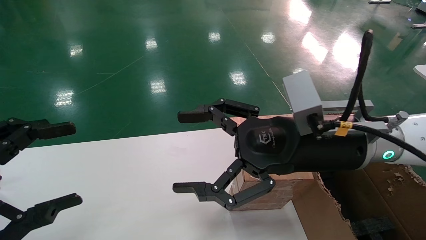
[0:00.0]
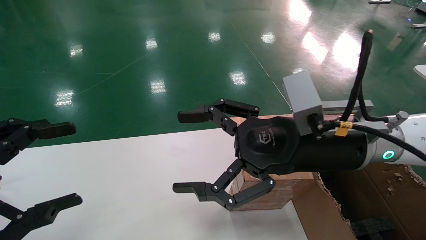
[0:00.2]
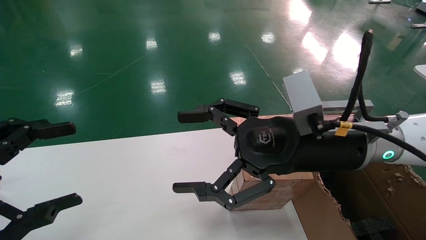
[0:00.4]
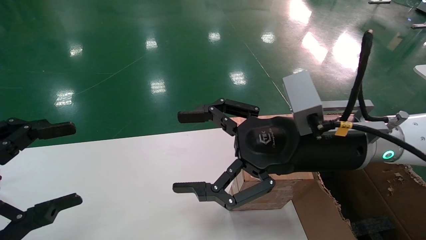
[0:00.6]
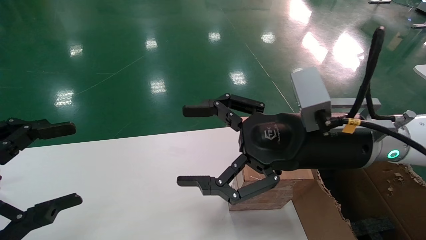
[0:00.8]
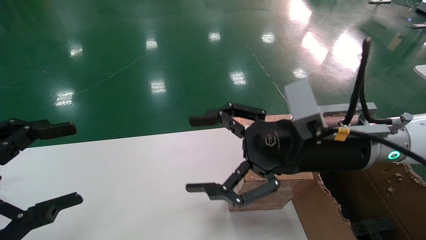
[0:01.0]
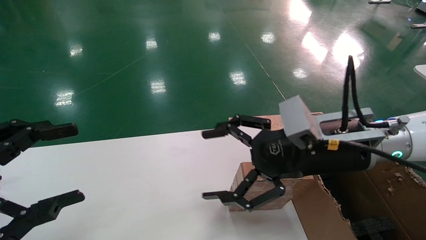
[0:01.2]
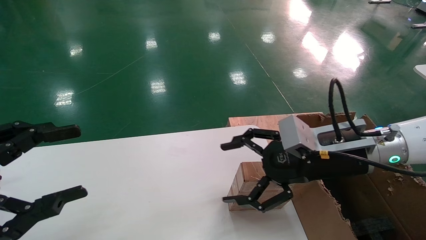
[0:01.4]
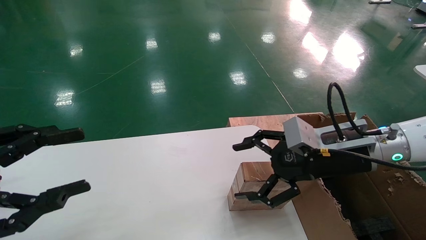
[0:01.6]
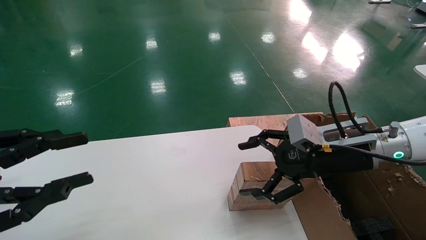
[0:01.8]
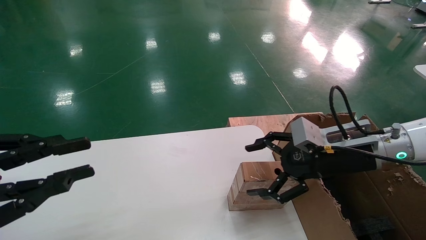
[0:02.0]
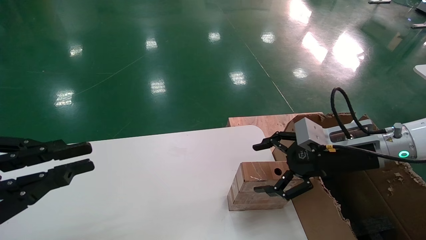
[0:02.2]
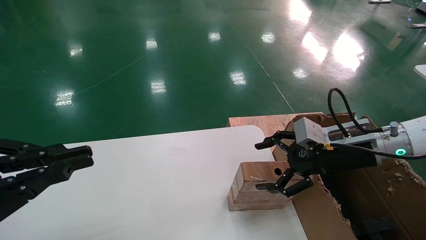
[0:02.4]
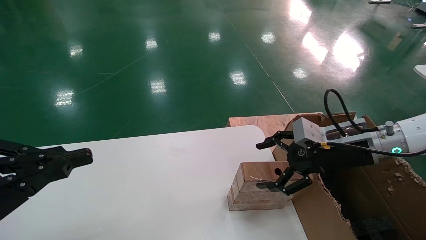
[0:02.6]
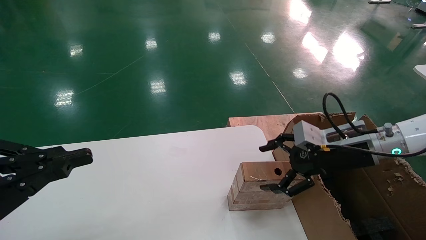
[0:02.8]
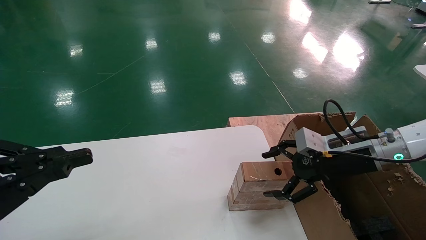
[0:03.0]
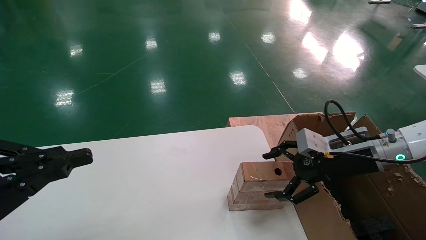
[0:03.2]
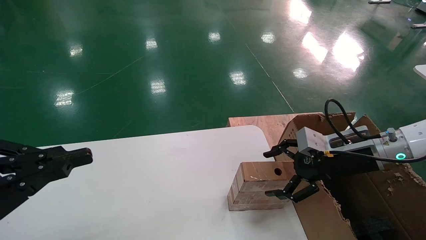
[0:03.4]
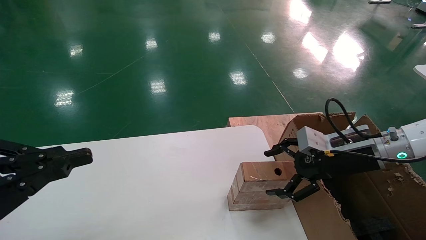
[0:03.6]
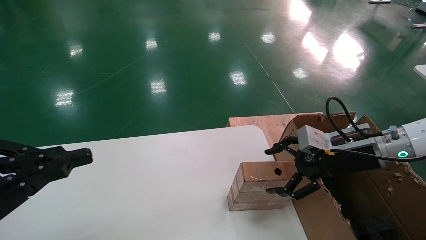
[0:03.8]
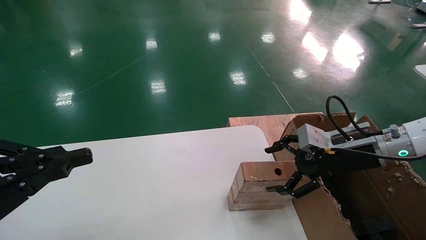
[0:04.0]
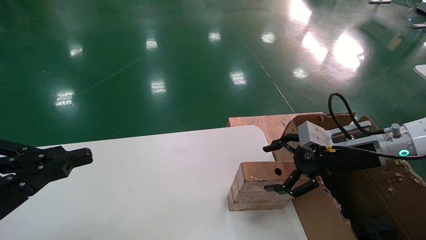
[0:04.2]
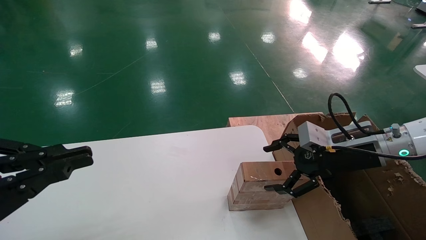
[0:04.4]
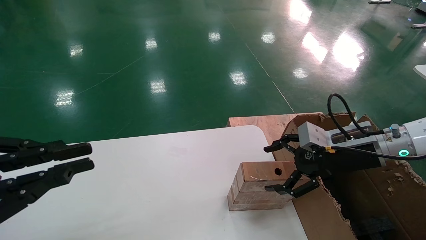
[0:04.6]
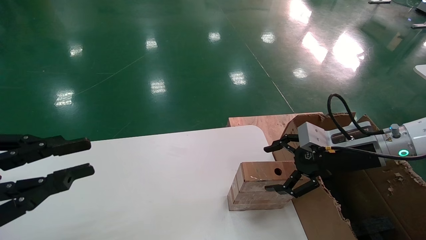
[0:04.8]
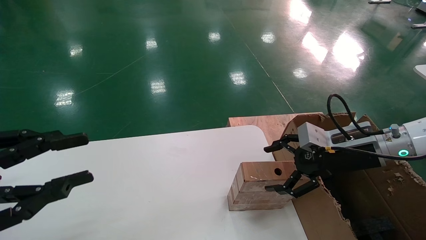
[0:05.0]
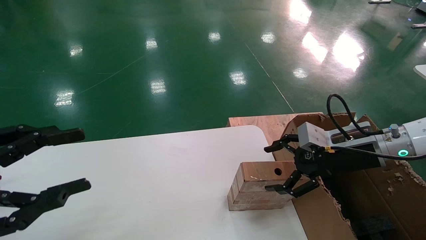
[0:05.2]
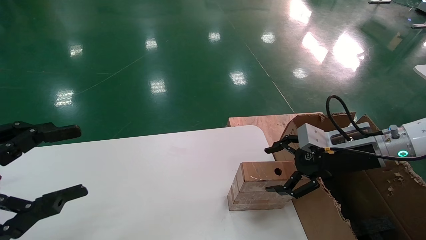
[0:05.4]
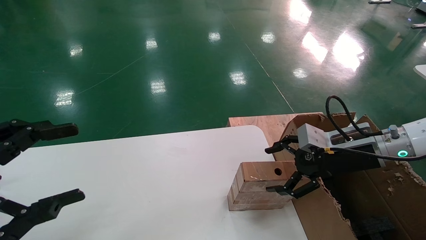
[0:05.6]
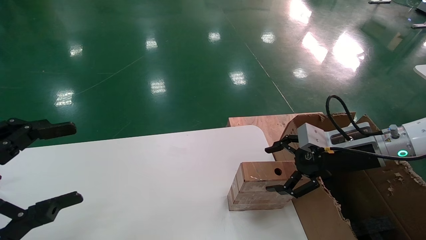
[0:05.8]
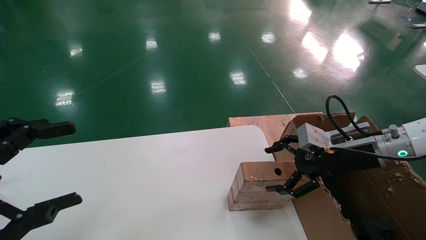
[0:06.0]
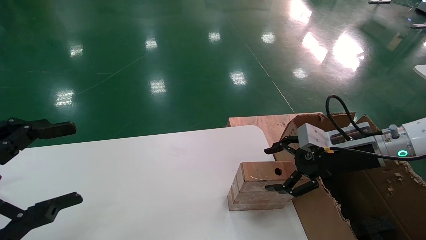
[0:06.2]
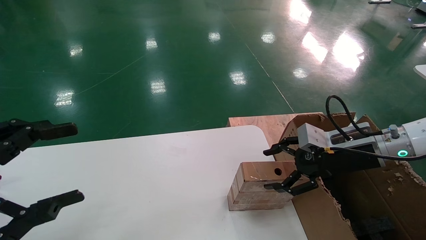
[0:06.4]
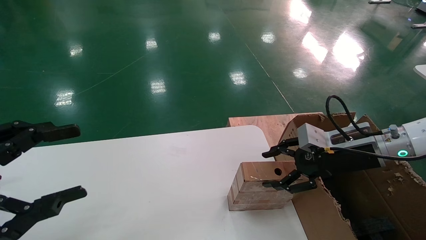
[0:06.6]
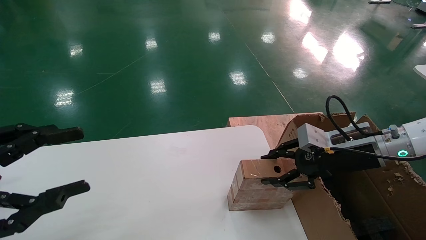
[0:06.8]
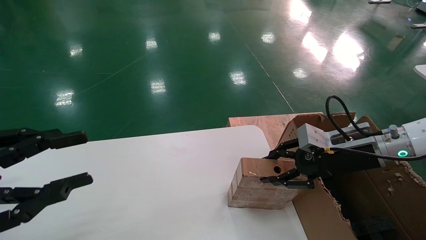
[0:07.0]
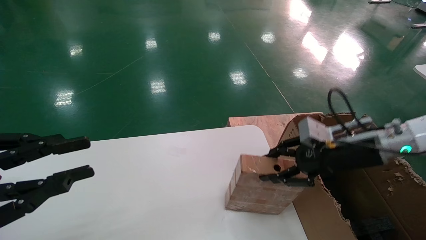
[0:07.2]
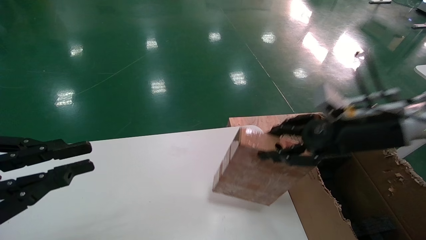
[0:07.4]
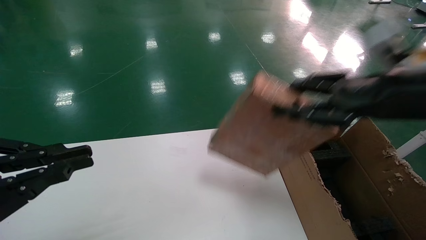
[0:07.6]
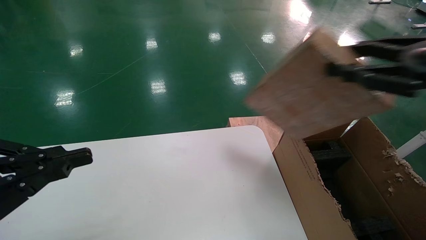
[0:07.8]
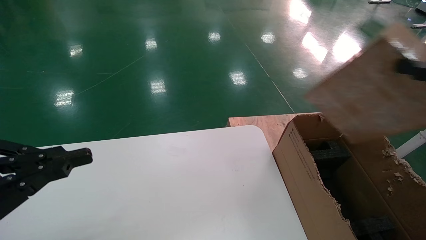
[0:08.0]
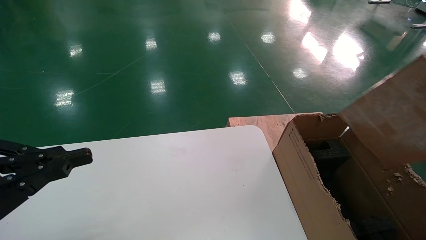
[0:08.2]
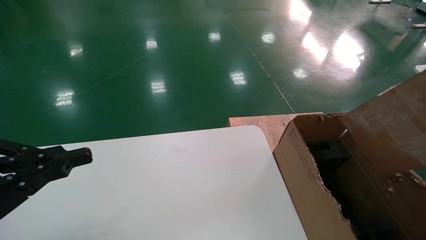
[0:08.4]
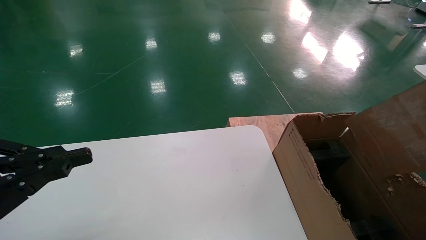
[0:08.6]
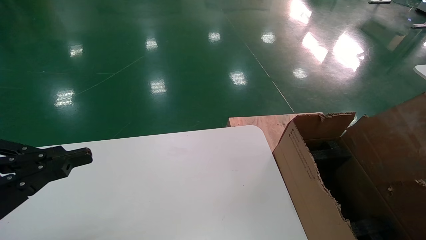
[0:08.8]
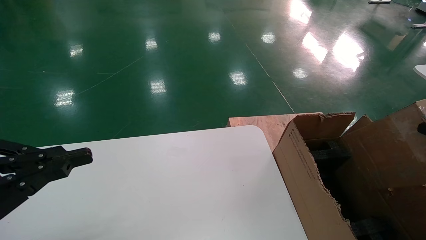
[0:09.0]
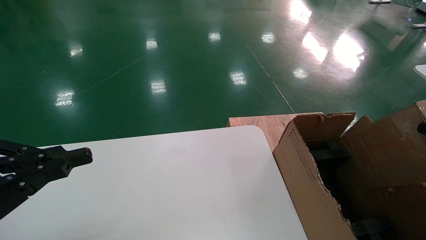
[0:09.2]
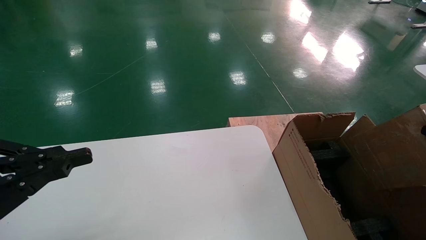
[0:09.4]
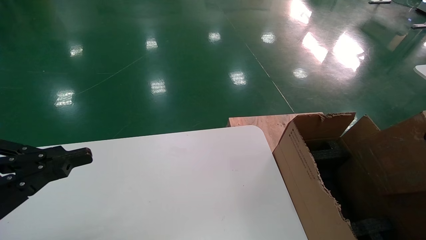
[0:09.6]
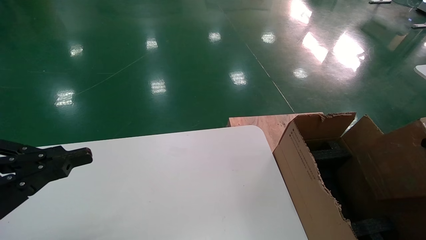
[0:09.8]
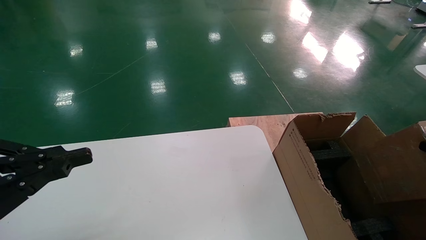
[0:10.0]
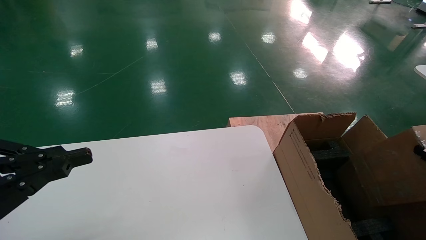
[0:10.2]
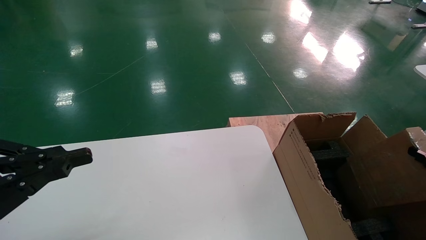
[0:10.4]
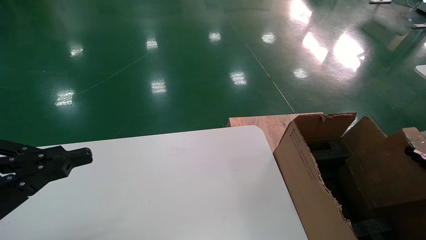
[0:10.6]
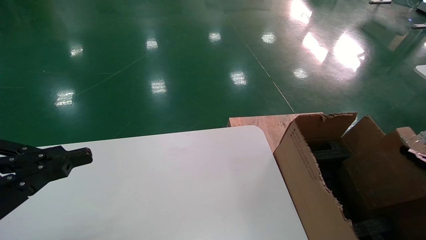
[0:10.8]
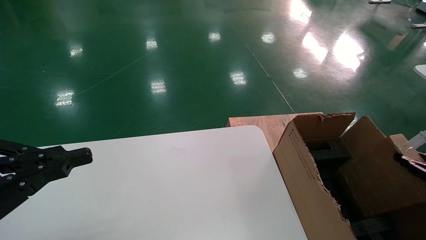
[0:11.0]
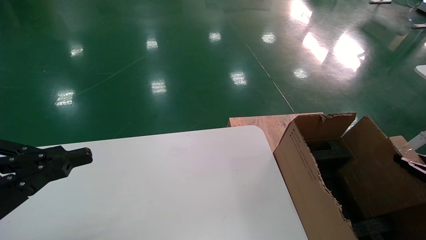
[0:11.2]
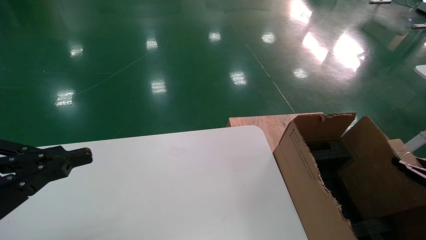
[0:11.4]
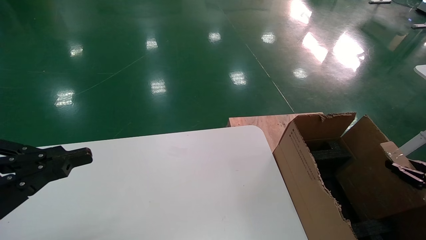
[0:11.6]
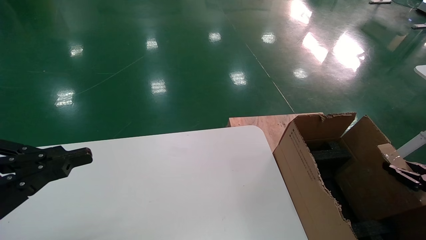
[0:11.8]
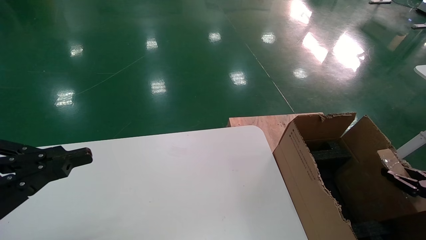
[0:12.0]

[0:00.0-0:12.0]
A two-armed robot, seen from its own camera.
Task of the whole recording: put the box on the table into the big box.
Step, 0:01.2 to 0:06.8: Pick up the mouse and the power cord paper box.
0:00.0 to 0:01.6: The right gripper heads to the right, covering about 10 cm.
0:01.6 to 0:03.0: The left gripper closes; the right gripper heads to the right, covering approximately 5 cm.
0:03.0 to 0:04.4: The two grippers keep their place.
0:04.4 to 0:06.0: The left gripper opens.
0:06.0 to 0:07.6: The right gripper shifts some 15 cm upward and backward, and closes. The left gripper closes.
0:07.6 to 0:09.0: The right gripper goes approximately 25 cm to the right, downward and backward.
0:09.0 to 0:10.4: The right gripper moves downward, some 10 cm.
0:10.4 to 0:12.0: The right gripper shifts roughly 5 cm downward.

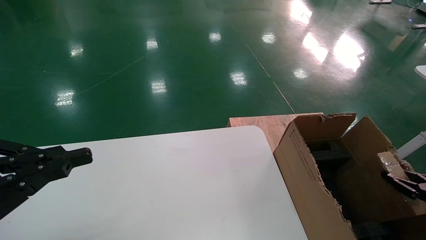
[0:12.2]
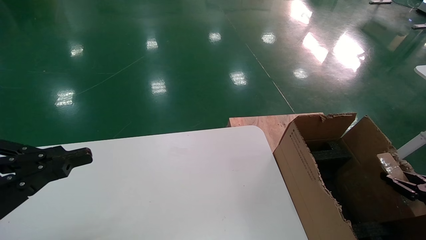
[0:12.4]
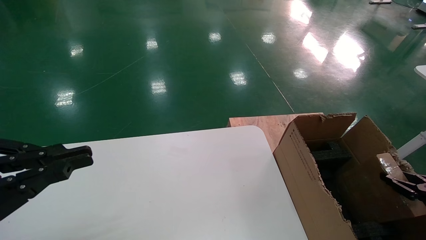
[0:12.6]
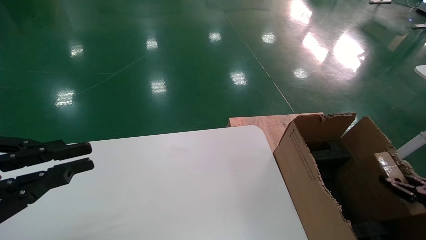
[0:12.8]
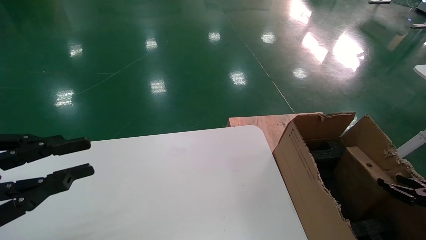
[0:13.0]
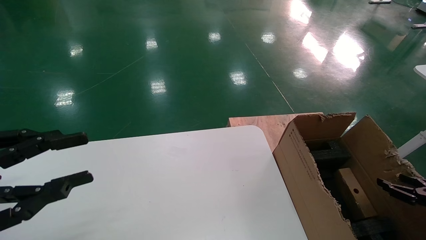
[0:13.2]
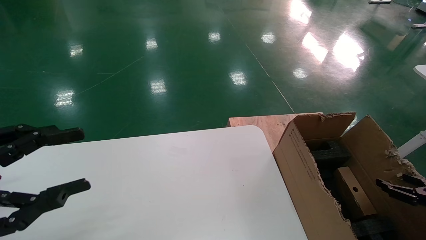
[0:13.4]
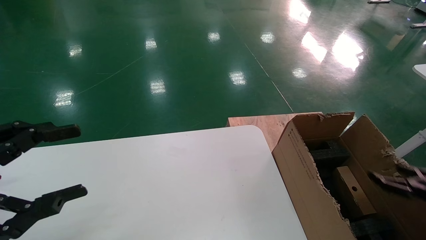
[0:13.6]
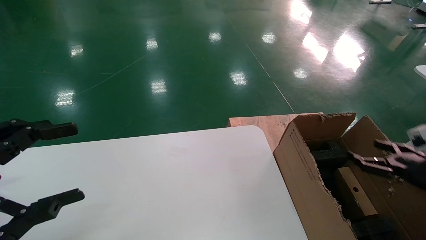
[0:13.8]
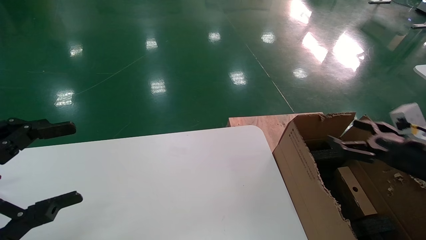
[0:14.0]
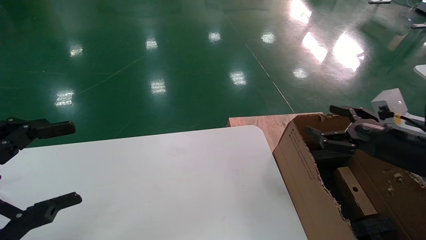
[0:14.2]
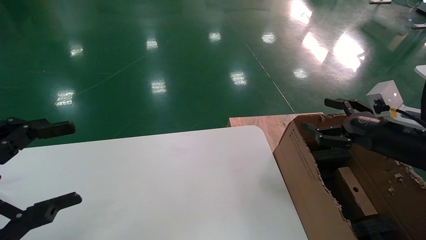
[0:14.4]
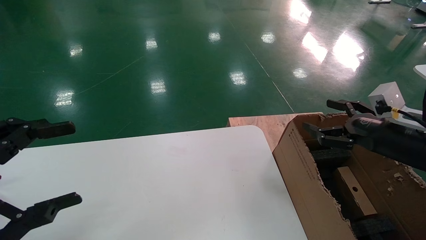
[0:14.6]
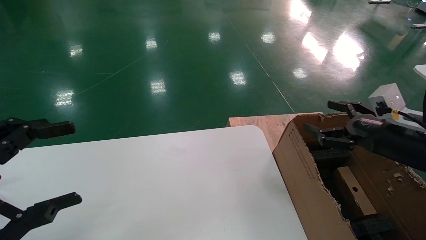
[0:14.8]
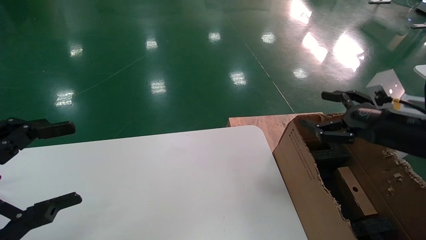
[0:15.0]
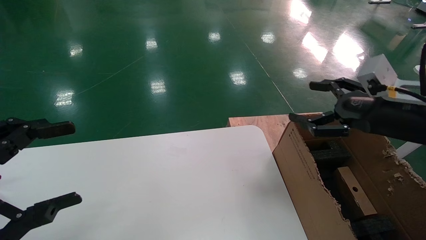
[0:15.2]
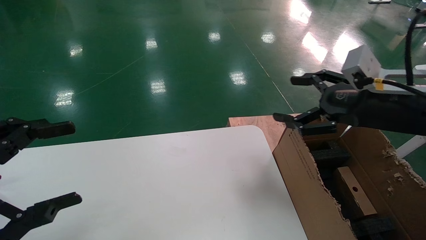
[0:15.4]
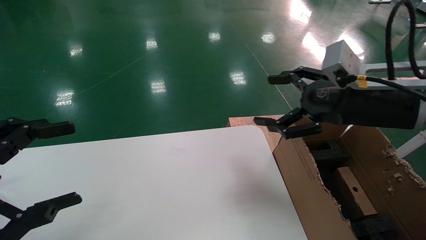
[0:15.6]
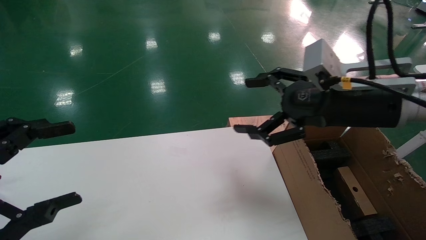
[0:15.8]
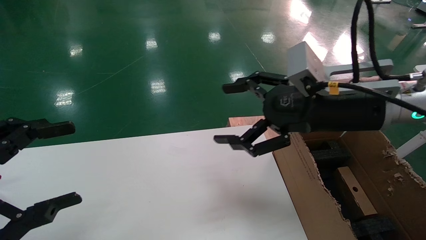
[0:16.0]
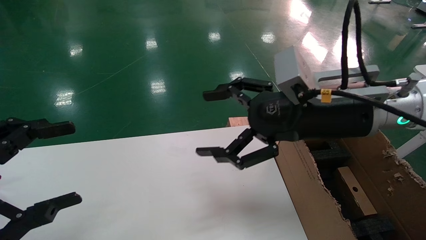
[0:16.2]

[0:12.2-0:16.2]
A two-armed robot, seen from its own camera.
Task of the whole recording: put the box on the table into the big box.
0:12.2 to 0:13.6: The left gripper opens its fingers; the right gripper opens its fingers.
0:13.6 to 0:14.8: The right gripper heads to the left and upward, covering roughly 20 cm.
0:14.8 to 0:16.2: The right gripper heads to the left and upward, covering roughly 20 cm.
